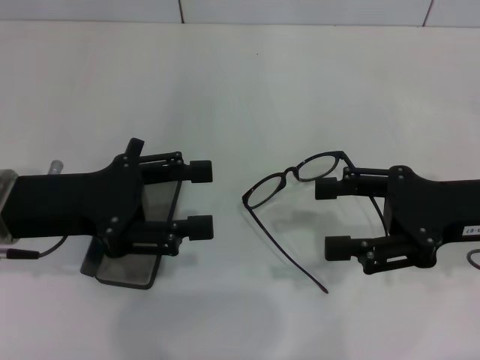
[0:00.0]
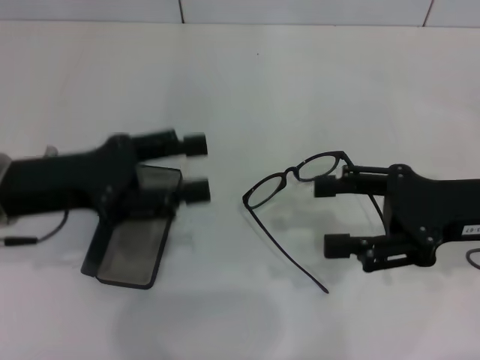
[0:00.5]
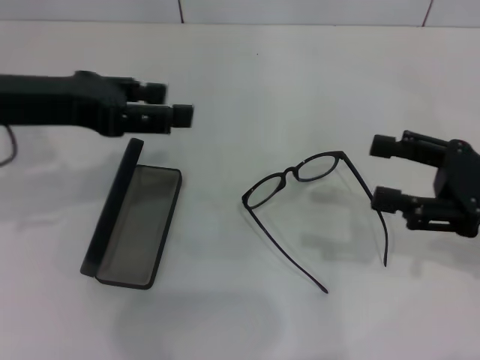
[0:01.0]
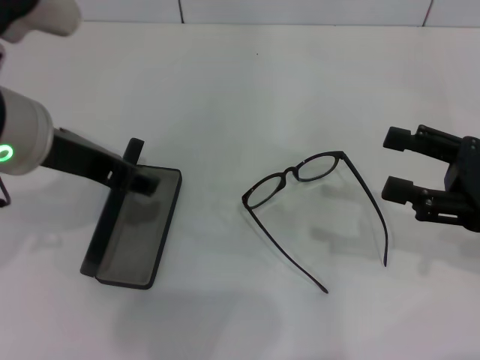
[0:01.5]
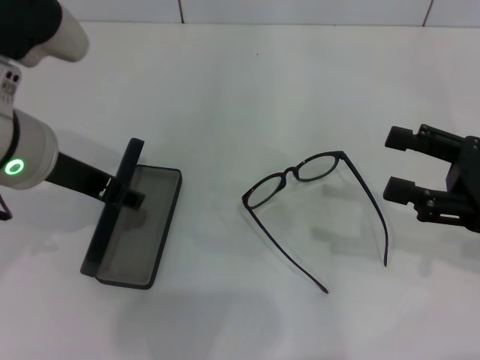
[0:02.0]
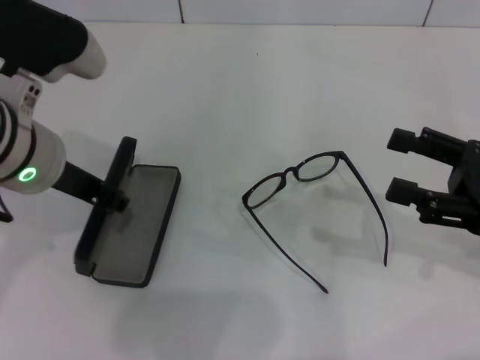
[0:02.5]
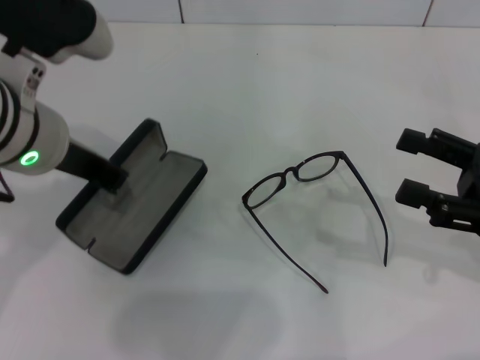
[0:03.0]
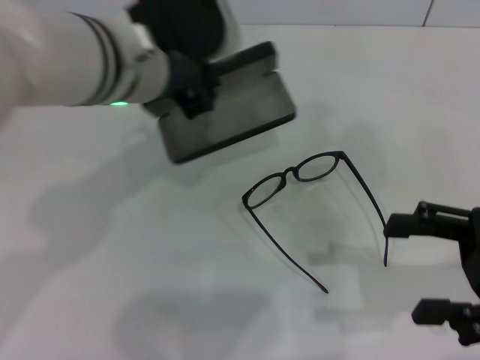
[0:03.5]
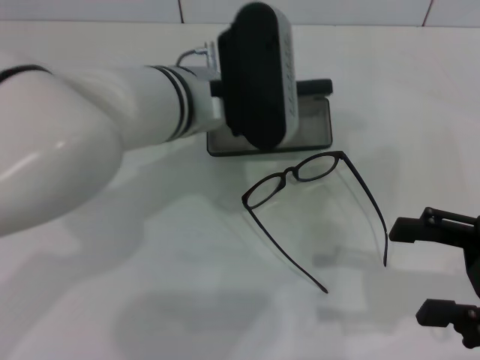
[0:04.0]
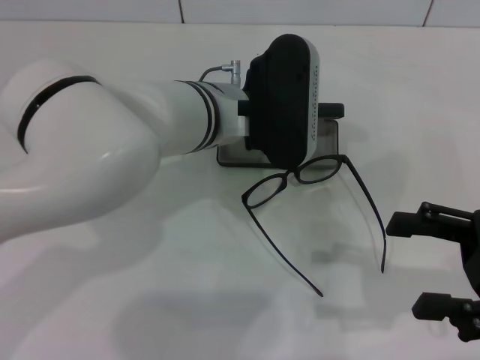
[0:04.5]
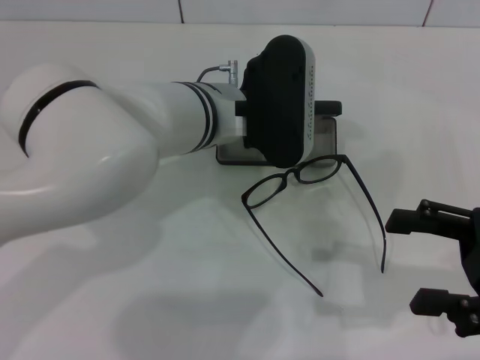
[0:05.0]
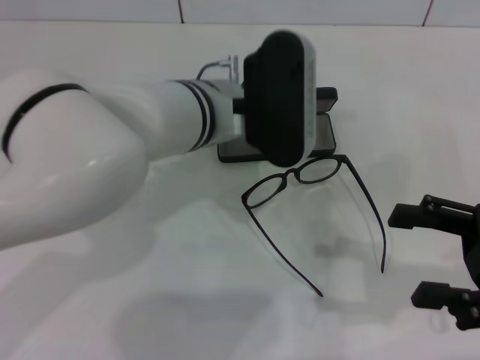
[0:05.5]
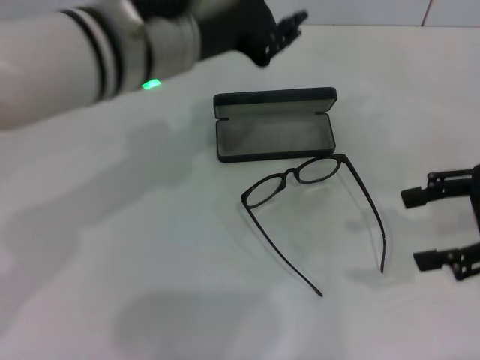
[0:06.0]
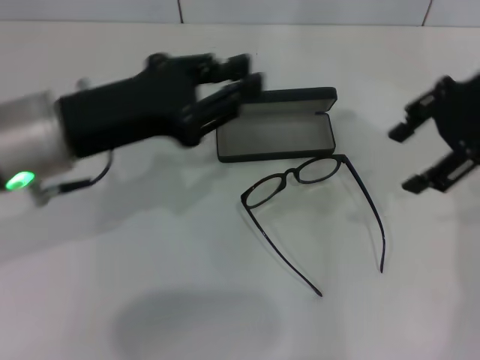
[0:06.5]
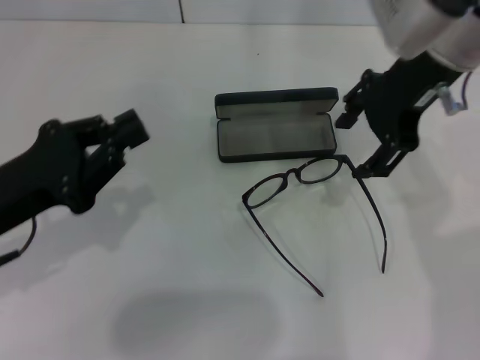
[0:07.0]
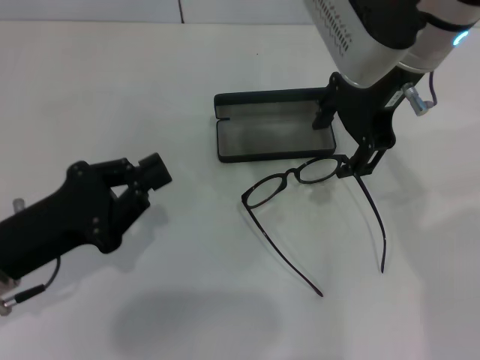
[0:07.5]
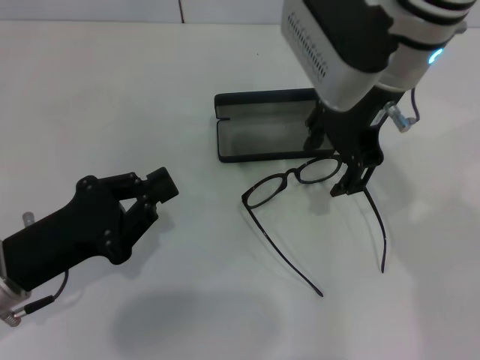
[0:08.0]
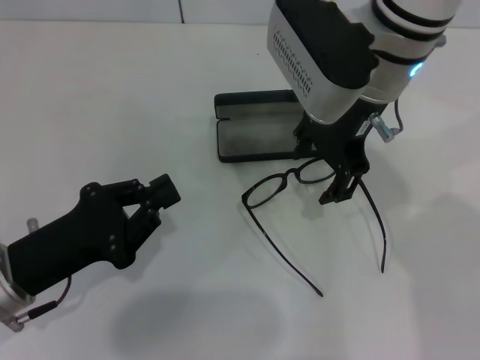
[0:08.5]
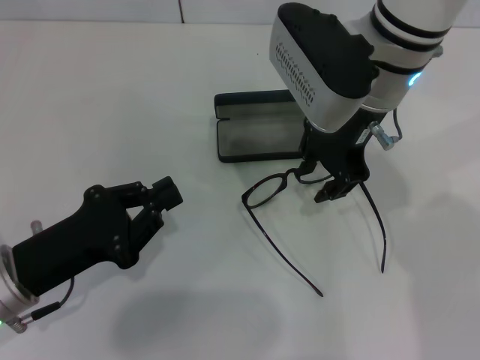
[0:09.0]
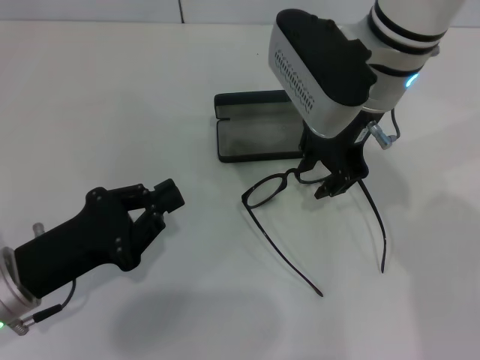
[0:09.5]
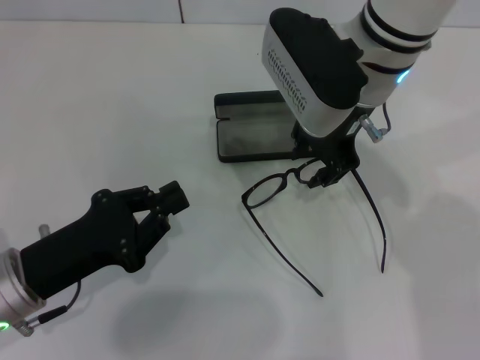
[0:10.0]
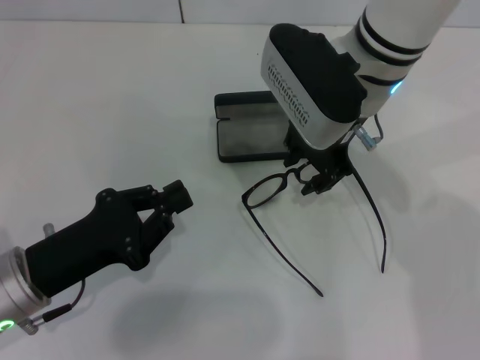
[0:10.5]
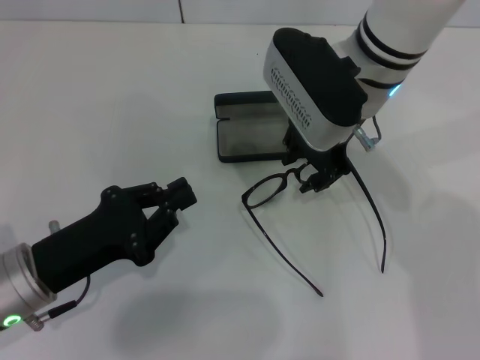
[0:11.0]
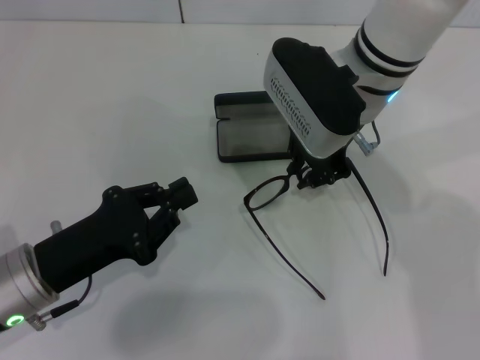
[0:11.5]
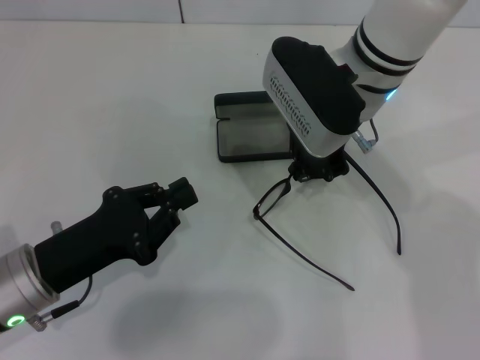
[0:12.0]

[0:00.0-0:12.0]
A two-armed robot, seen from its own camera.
Step, 0:00.0 to 0:02.0: Grab the glasses case with your left hand.
Step, 0:02.5 to 0:05.0: Place the glasses case in the center of the table with your left hand.
Step, 0:05.5 to 0:12.0: Grab the eyeglass frame with your right hand.
0:00.0 to 0:02.0: The right gripper shifts by about 5 cm; the left gripper moves upward and to the right, some 10 cm.
0:02.0 to 0:04.0: The left gripper travels to the right by some 10 cm, and closes up.
0:04.0 to 0:06.0: The left gripper is displaced upward by about 5 cm; the right gripper moves upward and forward, some 10 cm.
0:06.0 to 0:08.0: The right gripper goes some 25 cm to the left and forward. The left gripper heads downward, to the left and backward, covering approximately 25 cm, and closes up.
0:08.0 to 0:10.0: The right gripper closes up.
0:10.0 to 0:12.0: The right gripper closes.

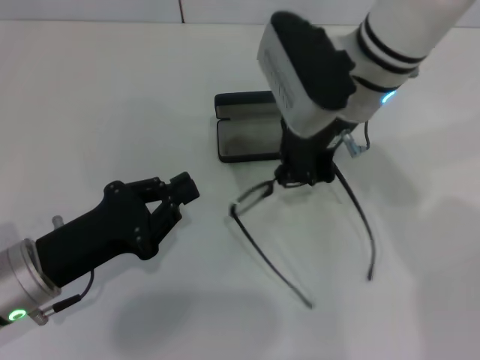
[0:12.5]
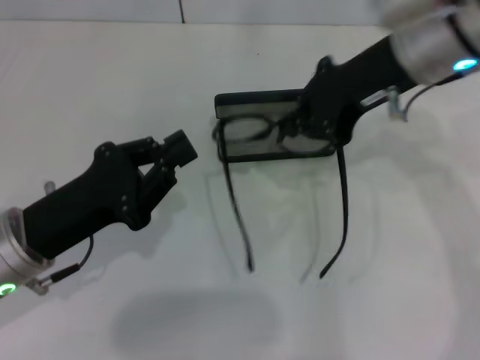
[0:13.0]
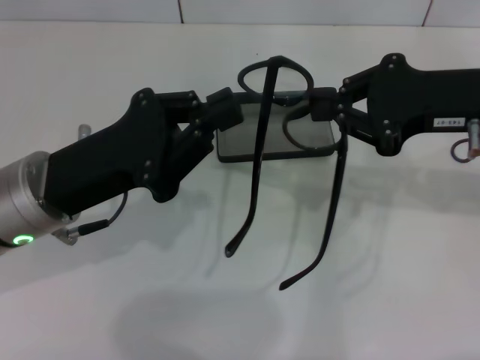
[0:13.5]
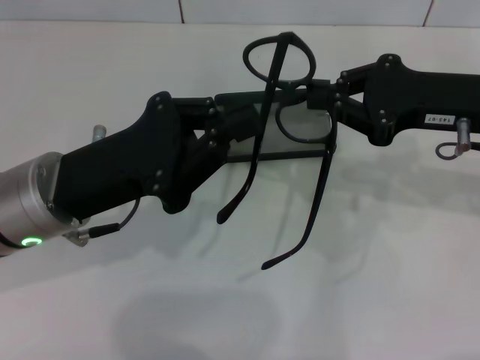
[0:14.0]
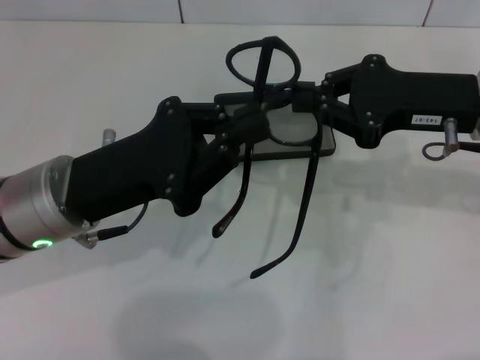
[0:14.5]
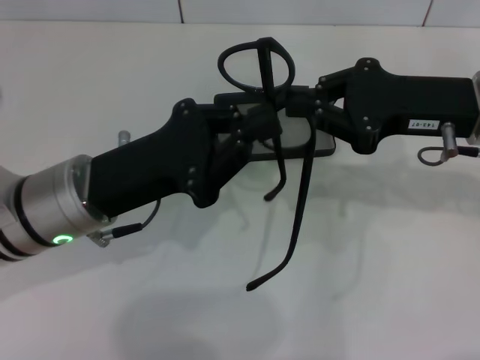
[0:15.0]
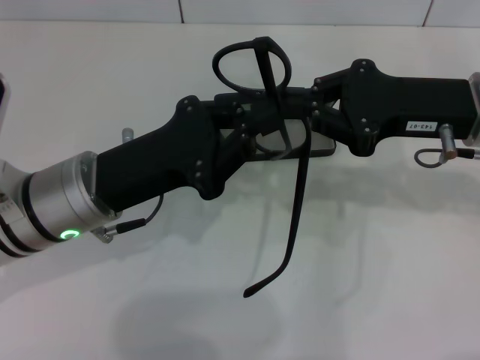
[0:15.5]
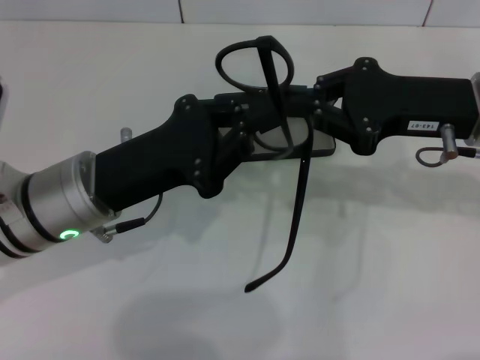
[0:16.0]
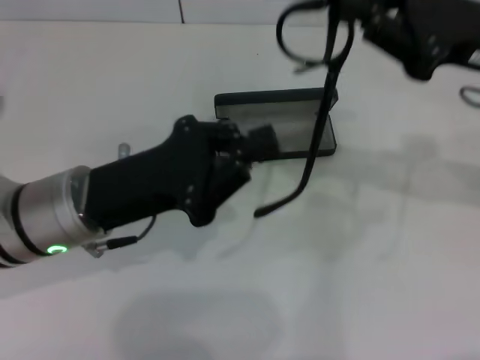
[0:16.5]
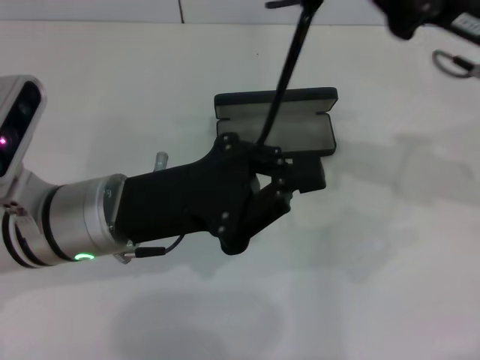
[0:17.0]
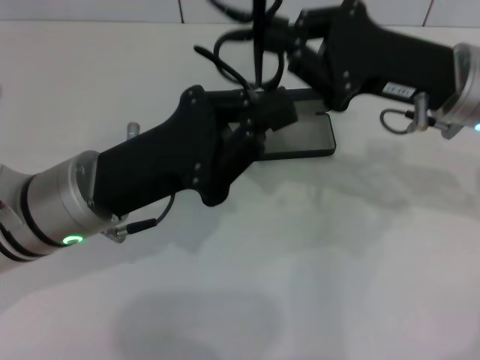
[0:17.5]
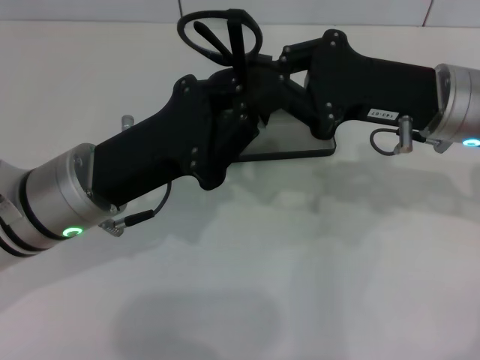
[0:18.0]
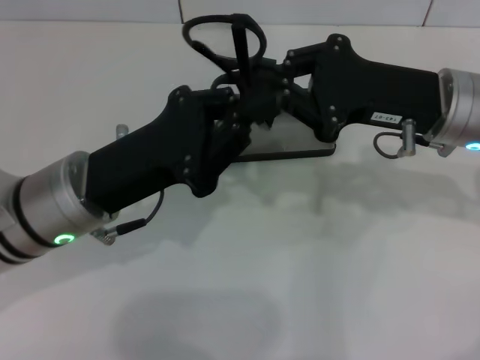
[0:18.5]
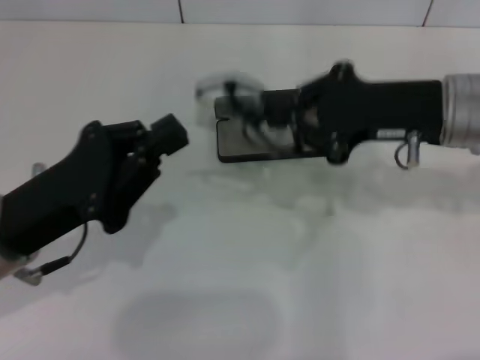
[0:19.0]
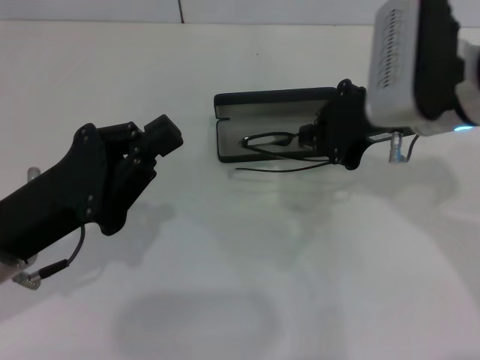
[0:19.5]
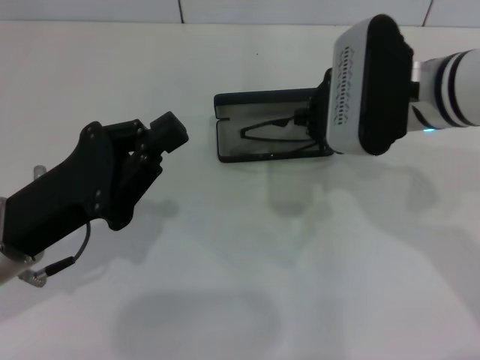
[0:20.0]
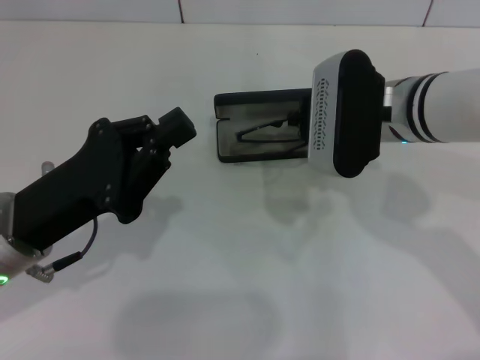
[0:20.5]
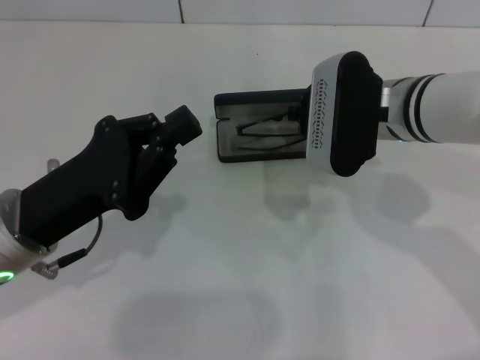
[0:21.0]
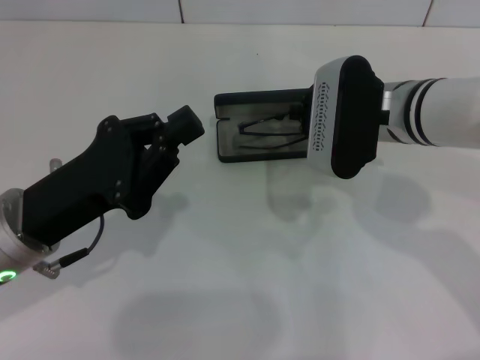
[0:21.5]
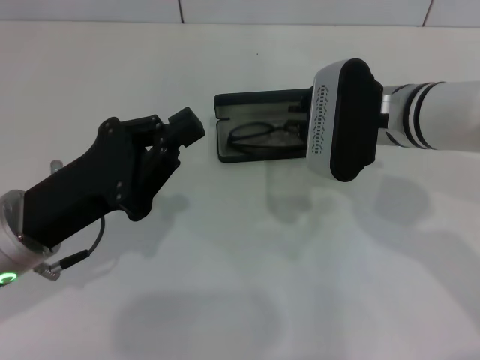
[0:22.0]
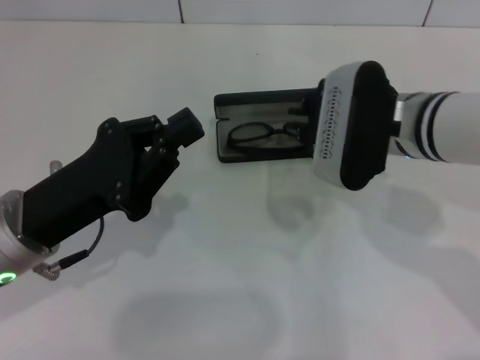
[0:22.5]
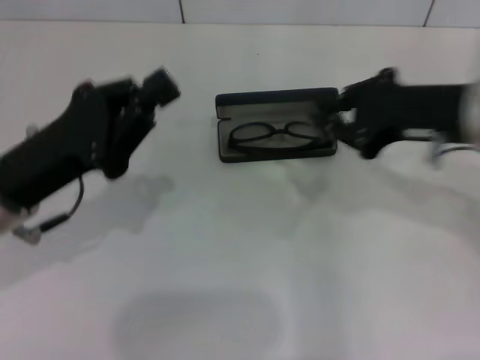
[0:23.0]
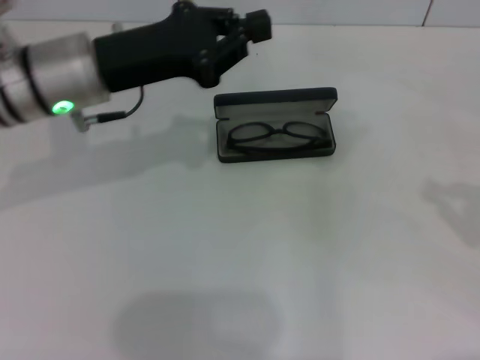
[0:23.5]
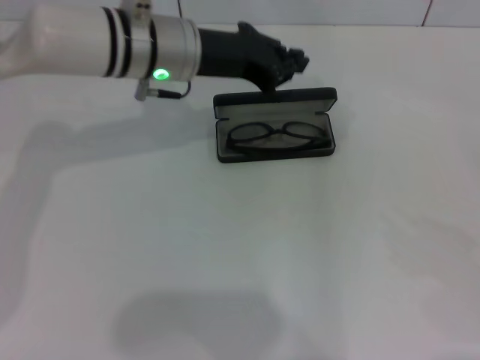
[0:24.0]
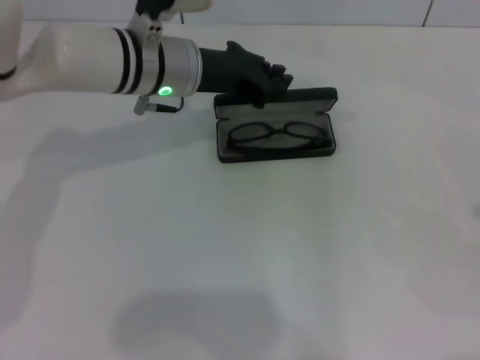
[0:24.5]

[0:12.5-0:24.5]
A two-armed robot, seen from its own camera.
Step, 0:12.5 to 0:18.5: Fold the frame with your left hand.
Step, 0:19.0 to 0:22.5: Put the glasses into the case with your right hand.
0:12.5 to 0:14.5: The left gripper moves upward and to the right, some 10 cm, while the right gripper travels to the right and backward by some 15 cm.
0:16.5 to 0:18.5: The right gripper shifts roughly 5 cm to the left.
0:18.5 to 0:20.5: The grippers both shift to the left by roughly 5 cm.
0:20.5 to 0:22.5: The grippers make only small movements.
0:22.5 to 0:24.5: The left gripper is displaced forward and to the right by approximately 20 cm; the right gripper goes some 35 cm to the right and backward.

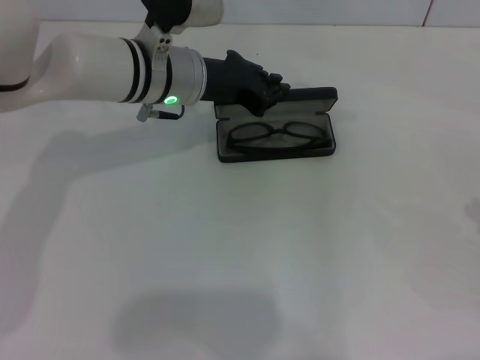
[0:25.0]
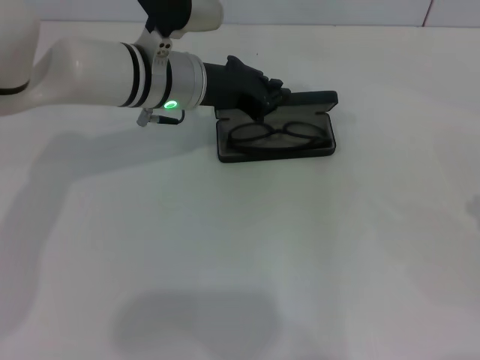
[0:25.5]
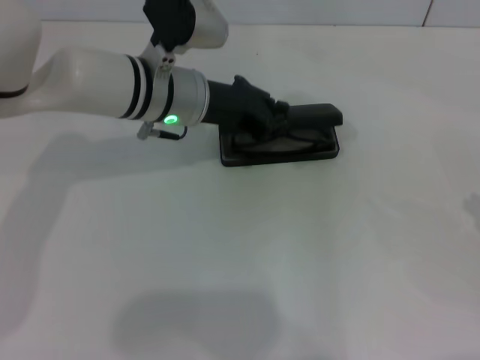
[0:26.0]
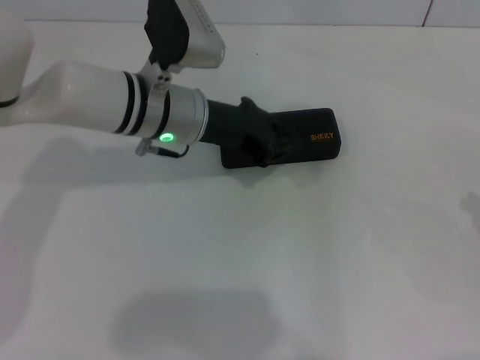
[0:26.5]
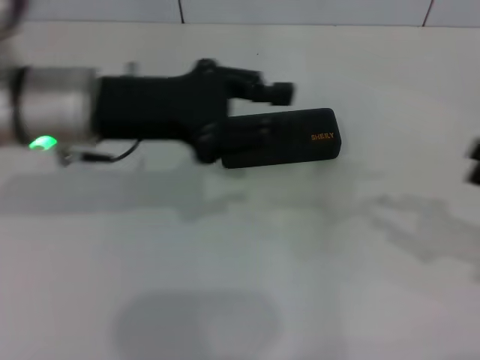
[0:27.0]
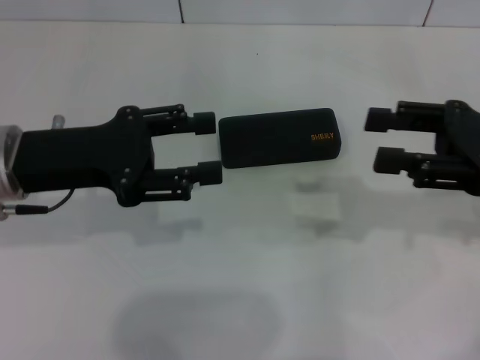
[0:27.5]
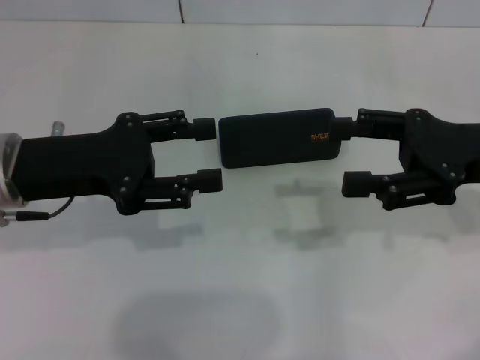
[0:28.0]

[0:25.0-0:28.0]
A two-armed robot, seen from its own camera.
0:25.0 to 0:26.5: The grippers stay close to where they were, moving slightly.
0:26.5 to 0:28.0: The right gripper goes approximately 20 cm to the left and forward, and opens up. The left gripper travels to the left and backward by some 15 cm, and opens.
